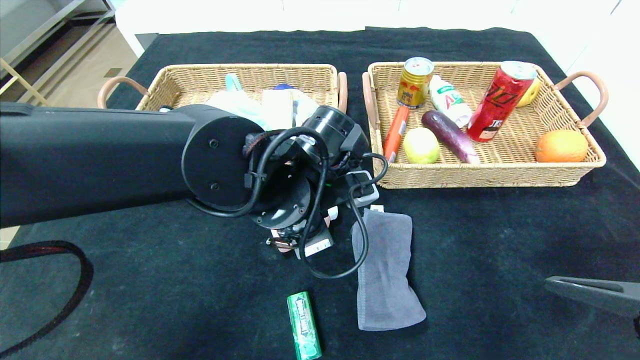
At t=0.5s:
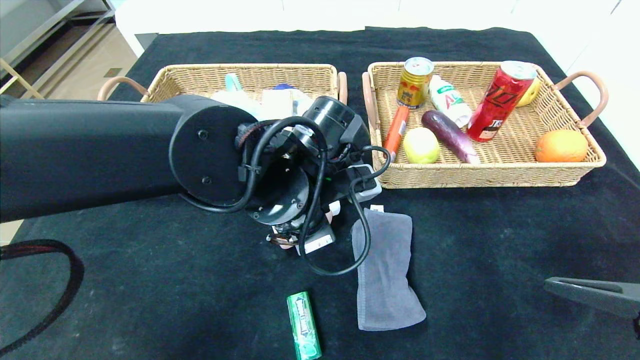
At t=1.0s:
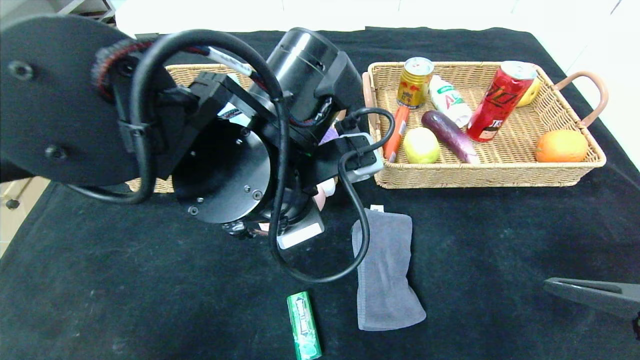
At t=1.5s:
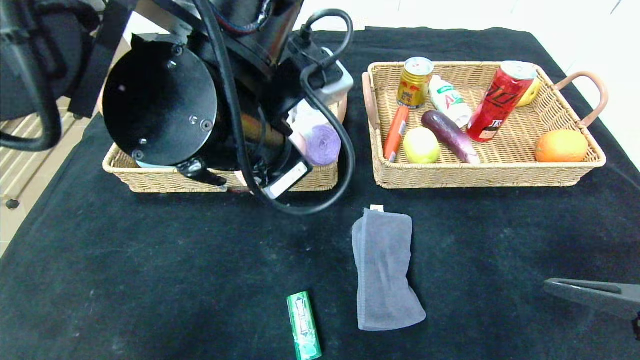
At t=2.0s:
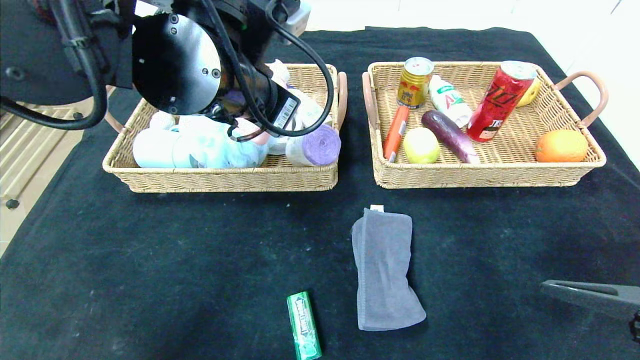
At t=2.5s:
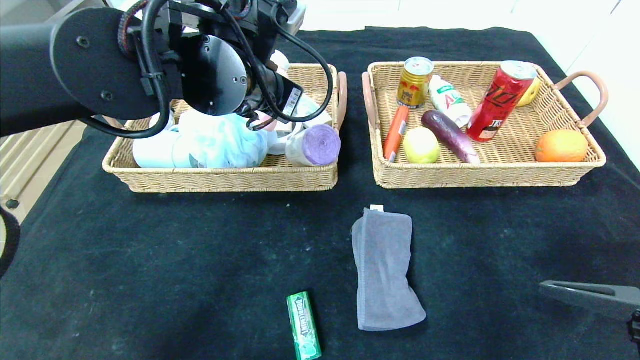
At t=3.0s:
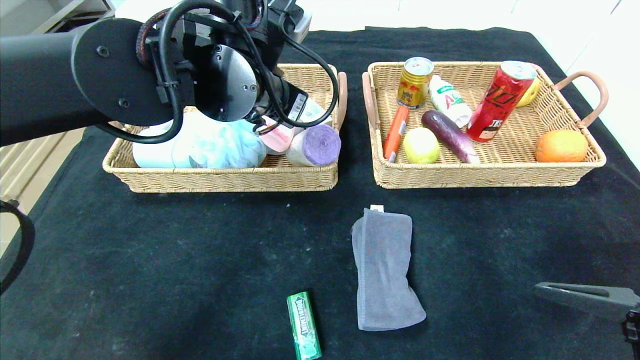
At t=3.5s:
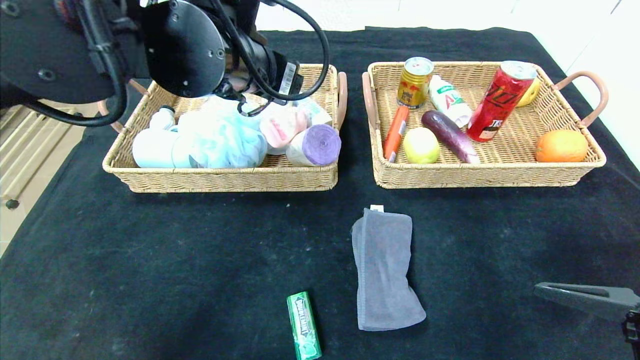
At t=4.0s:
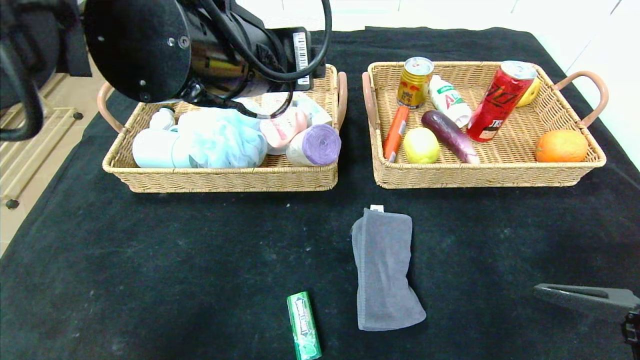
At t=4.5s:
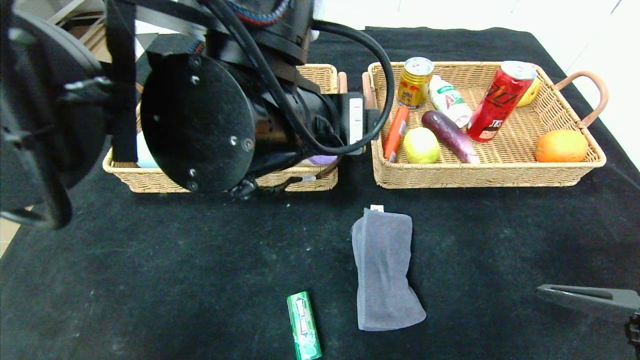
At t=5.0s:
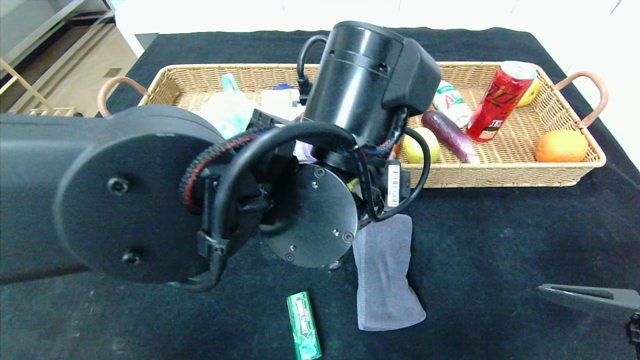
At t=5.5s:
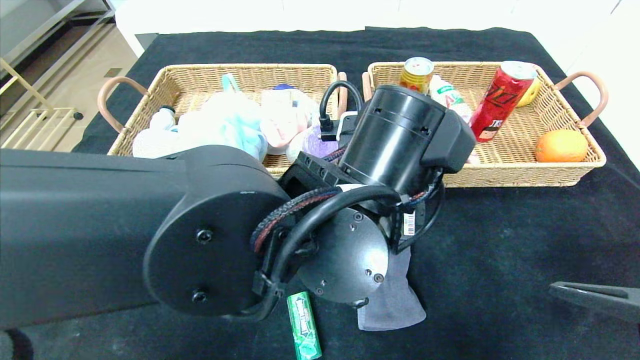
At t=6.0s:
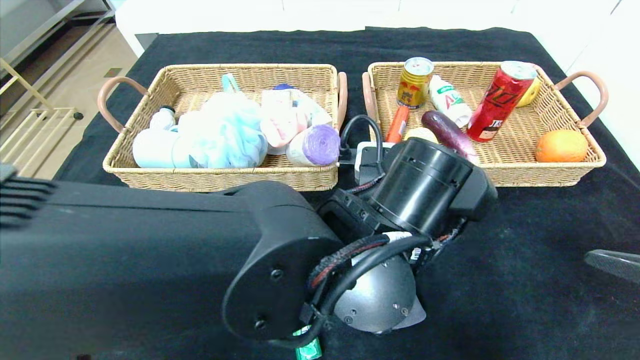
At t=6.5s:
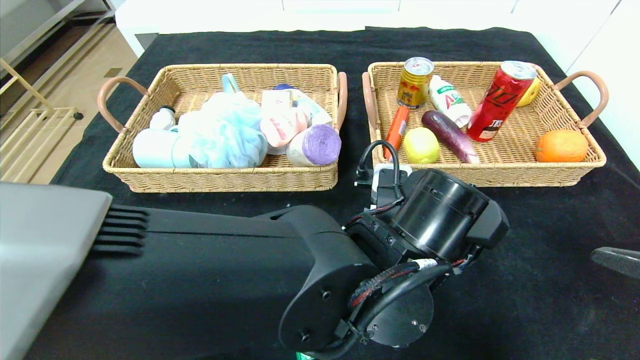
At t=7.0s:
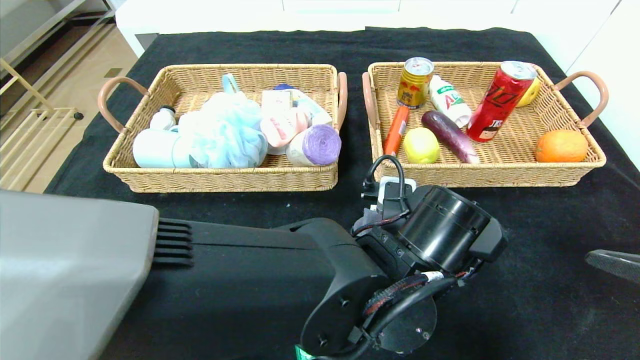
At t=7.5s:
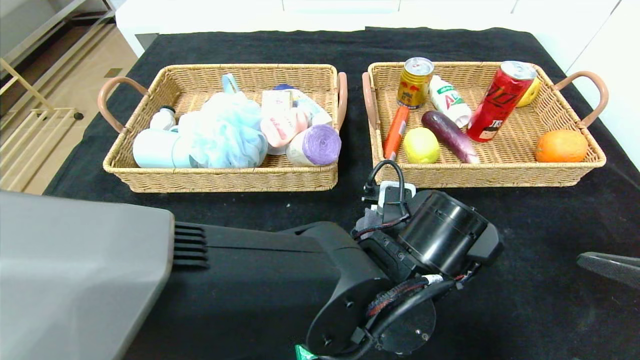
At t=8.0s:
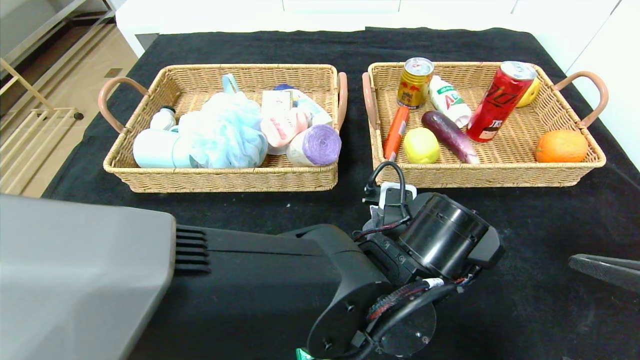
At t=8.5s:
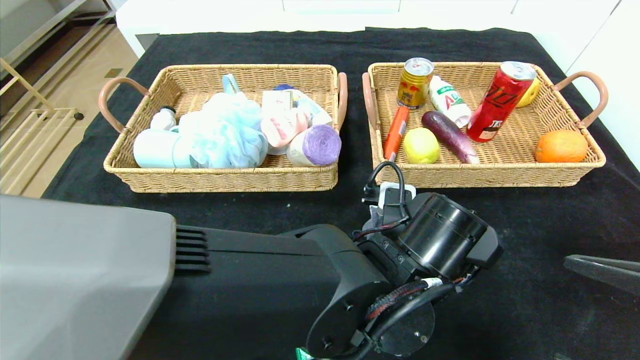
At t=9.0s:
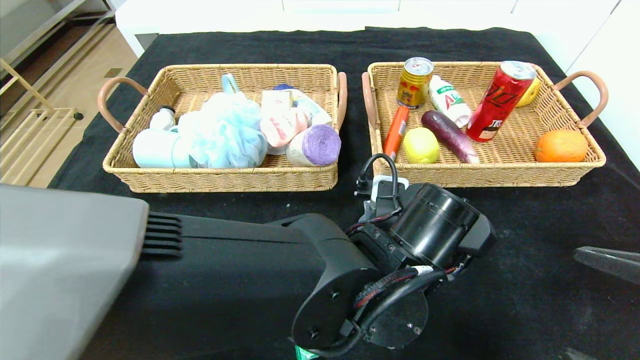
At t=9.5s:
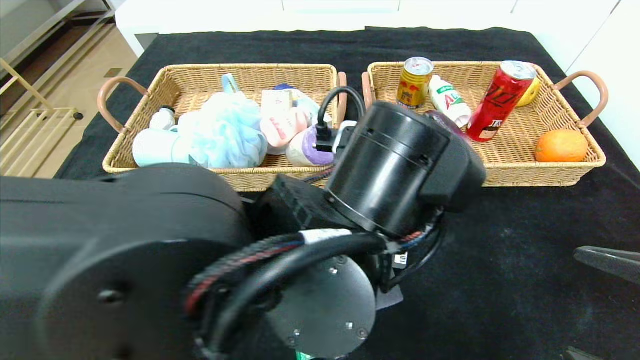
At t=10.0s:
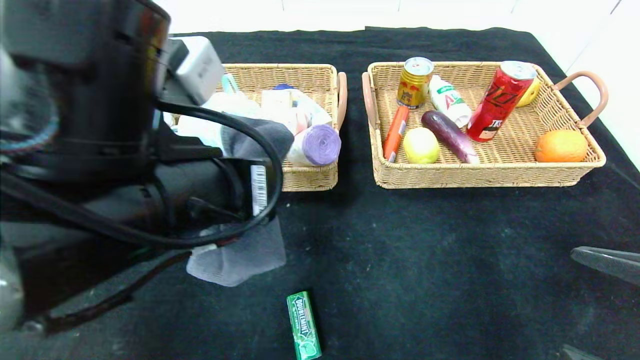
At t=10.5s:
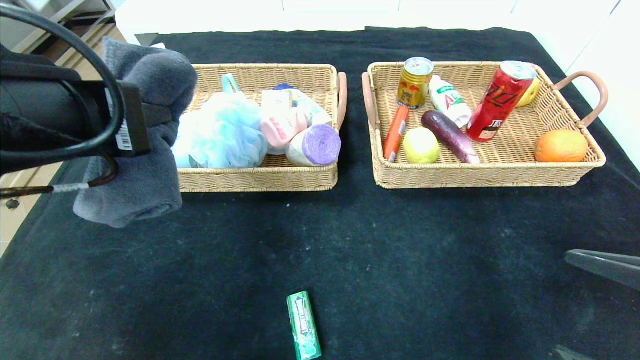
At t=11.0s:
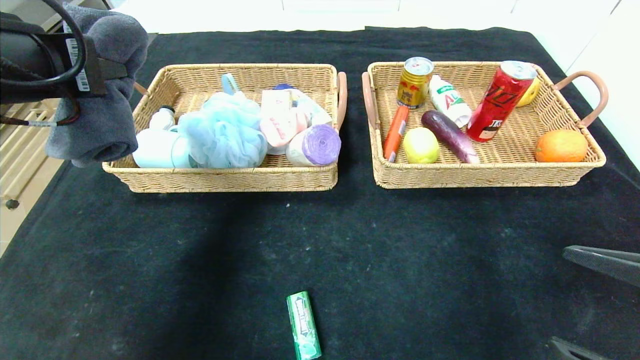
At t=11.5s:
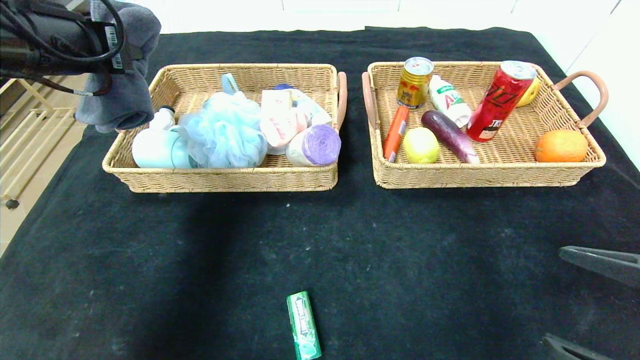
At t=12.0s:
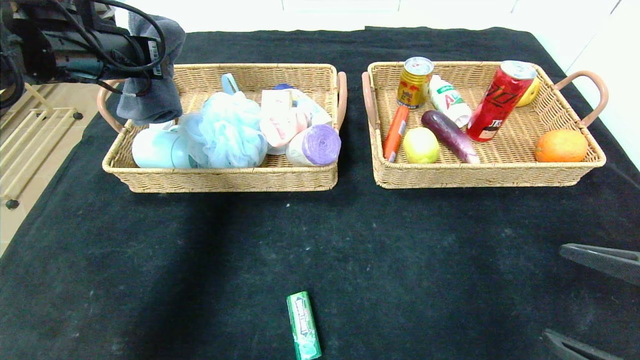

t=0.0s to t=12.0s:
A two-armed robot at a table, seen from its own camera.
Step, t=0.0s to t=3.0s: Grasp the detergent and put it in the left basket.
t=0.0s to t=2.0s: The left gripper heads upward, covering roughly 10 cm.
t=2.0s to t=4.0s: The left gripper opens.
t=4.0s to t=6.0s: The left gripper is displaced downward and to the right by roughly 20 cm.
t=6.0s to t=8.0s: The left gripper shifts some 5 cm downward, and closes.
t=8.0s to t=10.0s: The left gripper moves to the left and upward, some 20 cm.
t=10.0s to t=12.0s: The left gripper heads forward and to the left, covering approximately 25 cm.

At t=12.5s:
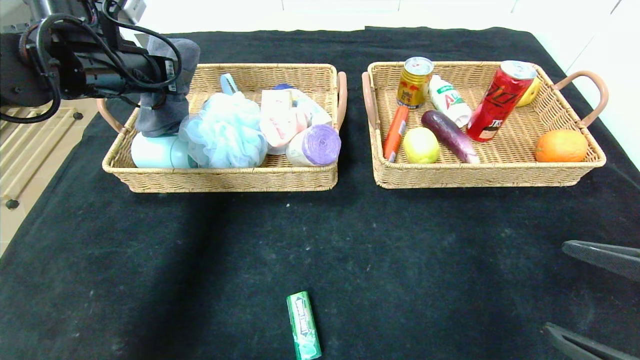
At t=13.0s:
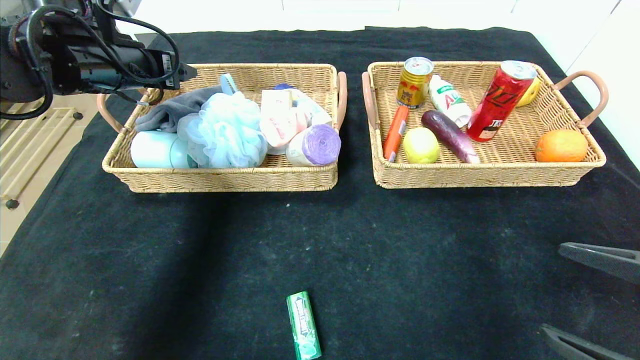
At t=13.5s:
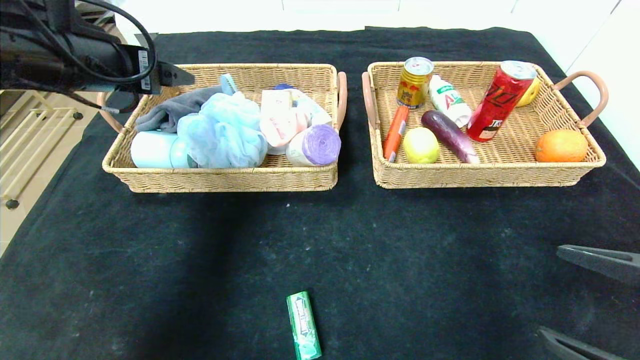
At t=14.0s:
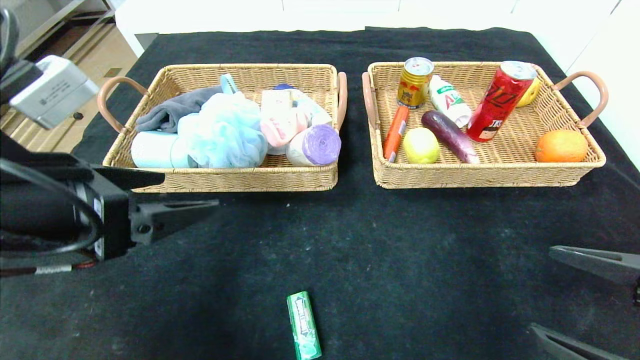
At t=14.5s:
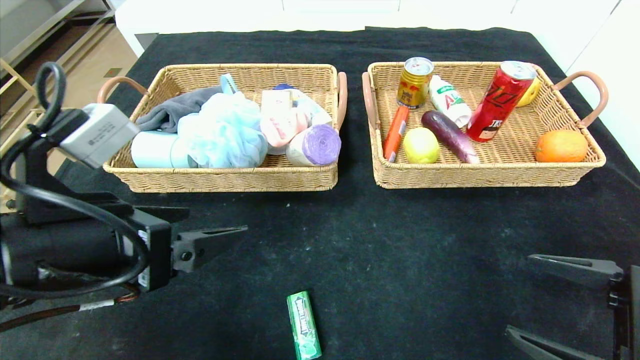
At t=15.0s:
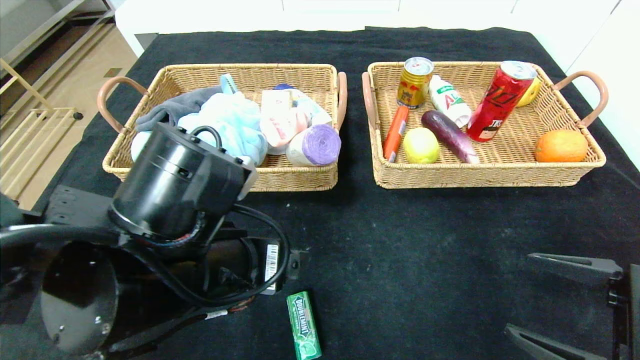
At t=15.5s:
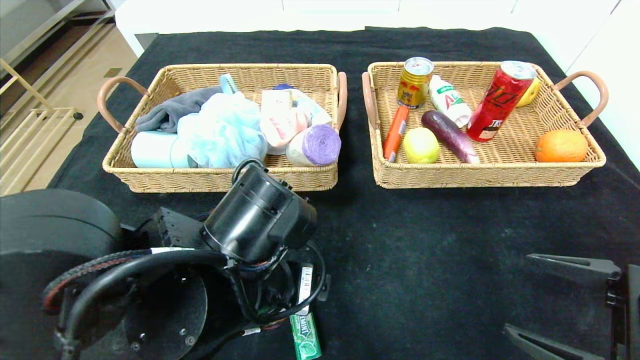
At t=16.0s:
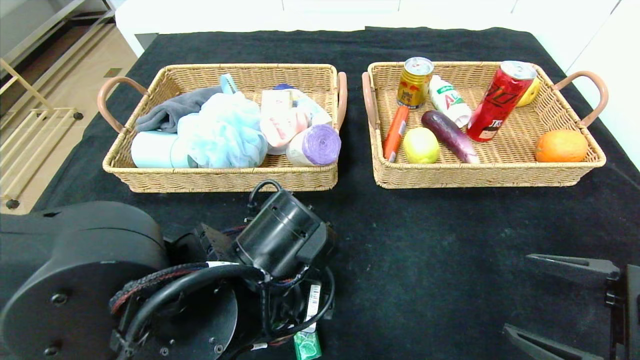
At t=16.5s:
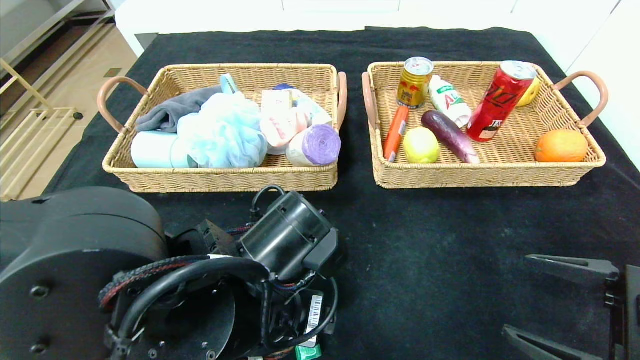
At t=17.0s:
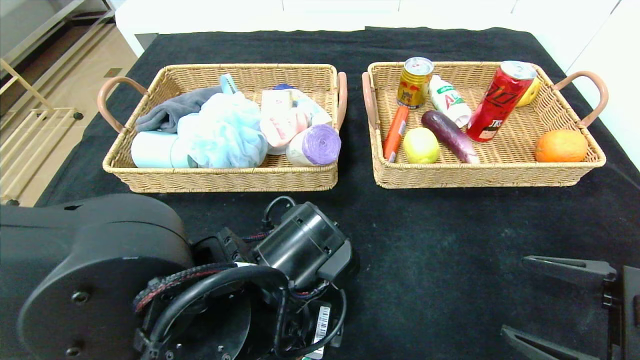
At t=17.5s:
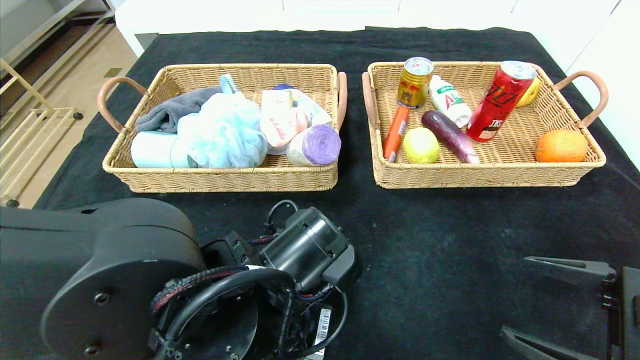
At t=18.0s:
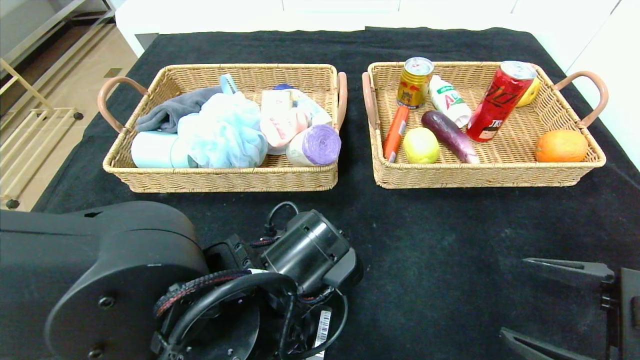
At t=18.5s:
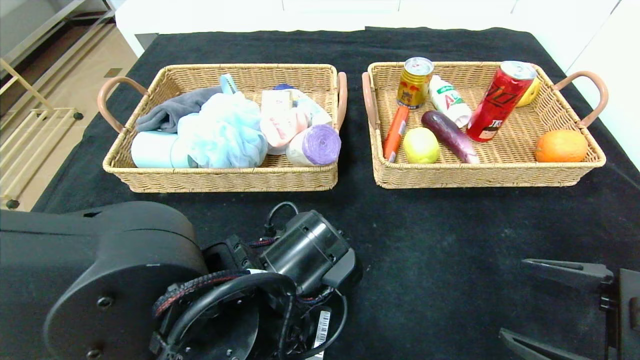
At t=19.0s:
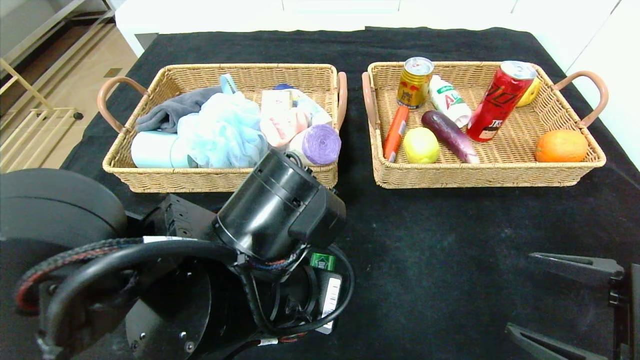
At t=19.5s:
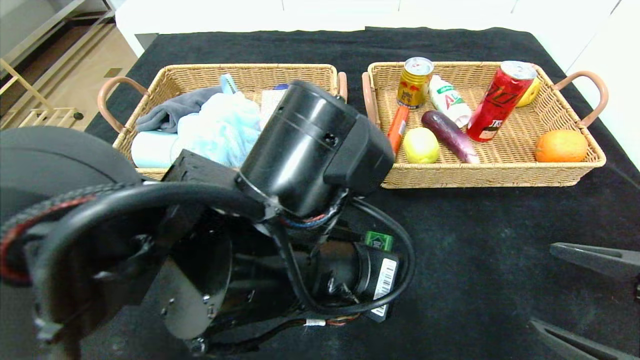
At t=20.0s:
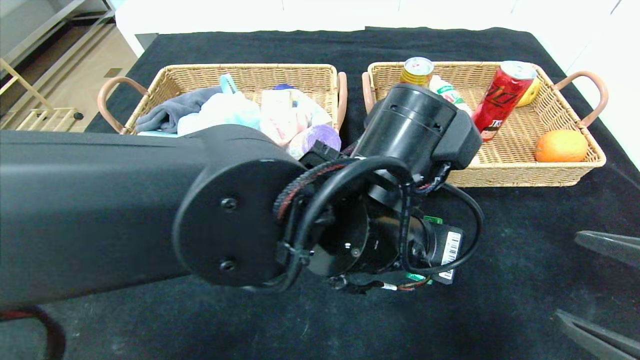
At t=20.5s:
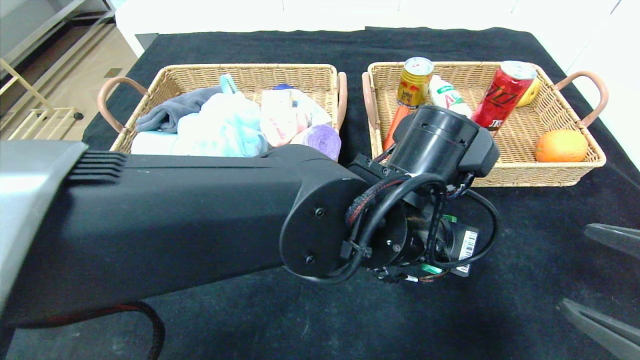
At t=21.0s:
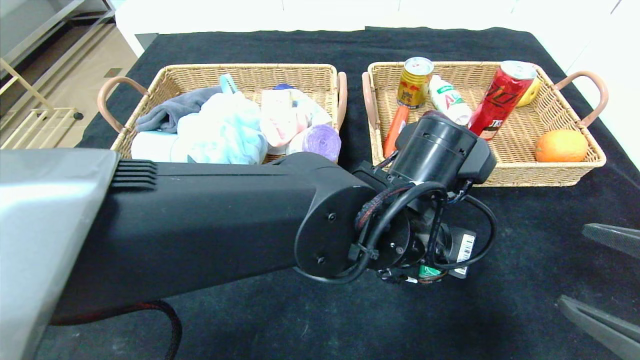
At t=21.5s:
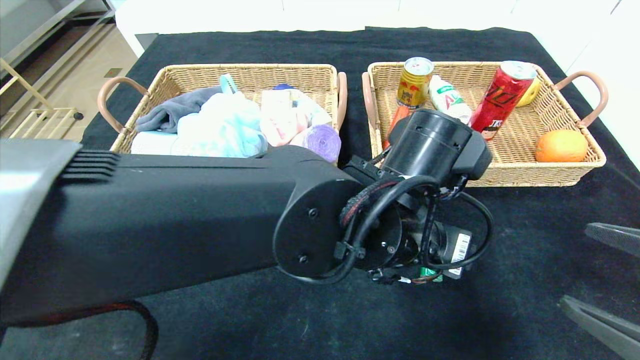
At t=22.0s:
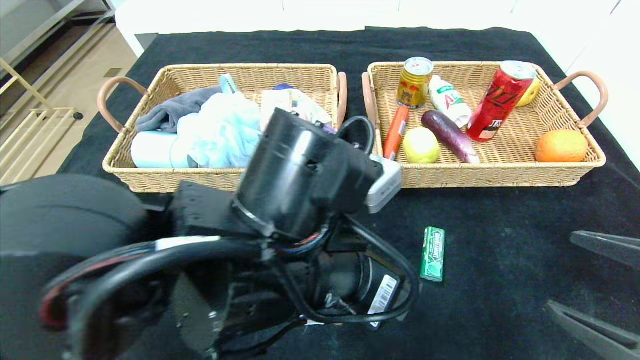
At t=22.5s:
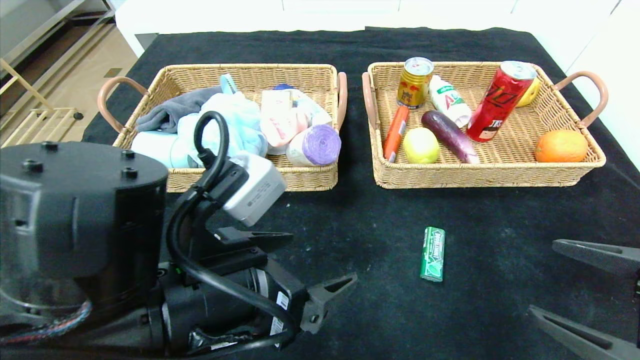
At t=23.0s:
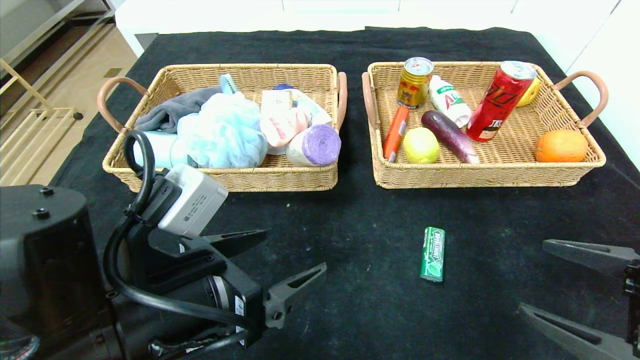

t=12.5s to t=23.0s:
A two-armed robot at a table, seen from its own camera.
Step, t=13.0s to t=21.0s: Place the green chewing gum in the center of the table.
t=12.5s to t=14.5s: The left gripper goes about 20 cm backward, and opens.
t=14.5s to t=16.5s: The left gripper heads to the right and downward, covering approximately 15 cm.
t=16.5s to t=19.0s: The left gripper closes its fingers.
t=19.0s to t=21.0s: The left gripper shifts some 15 cm to the right and forward, and opens.
t=21.0s to t=23.0s: The left gripper heads to the left and backward, covering some 20 cm, and opens its fingers.
